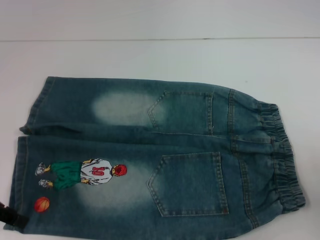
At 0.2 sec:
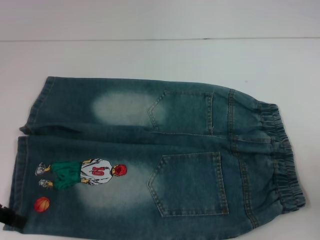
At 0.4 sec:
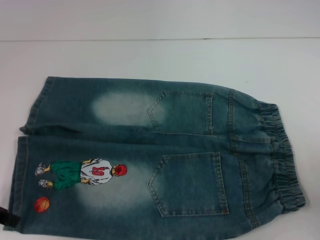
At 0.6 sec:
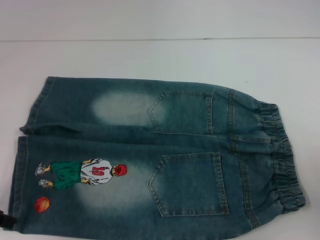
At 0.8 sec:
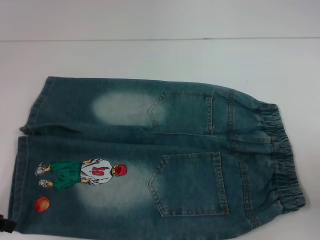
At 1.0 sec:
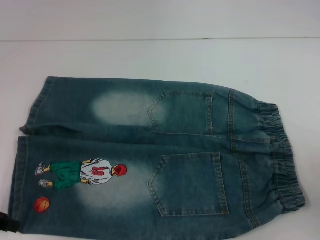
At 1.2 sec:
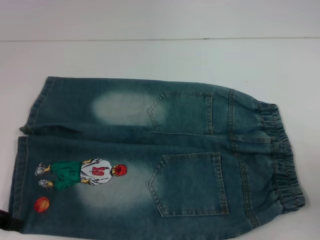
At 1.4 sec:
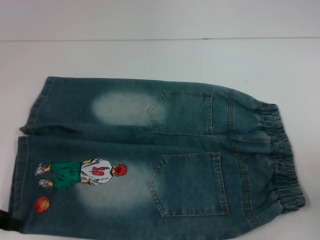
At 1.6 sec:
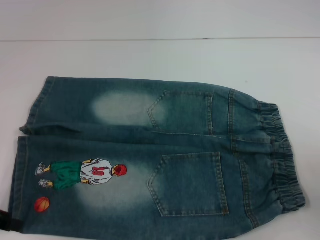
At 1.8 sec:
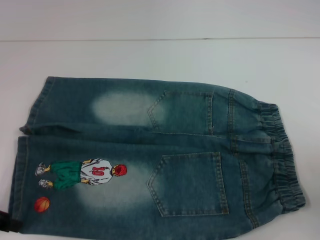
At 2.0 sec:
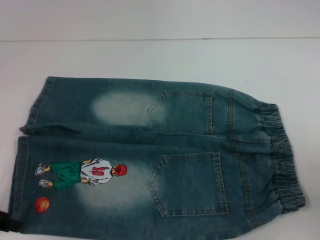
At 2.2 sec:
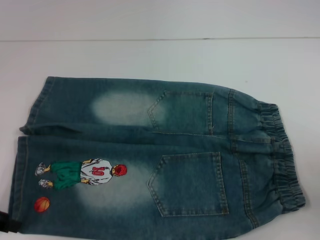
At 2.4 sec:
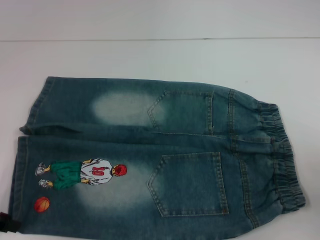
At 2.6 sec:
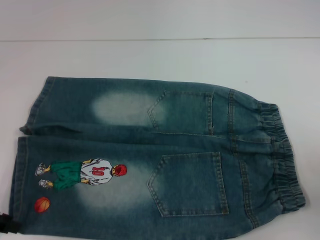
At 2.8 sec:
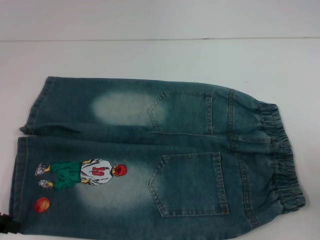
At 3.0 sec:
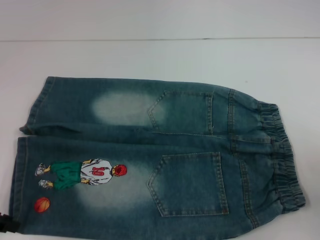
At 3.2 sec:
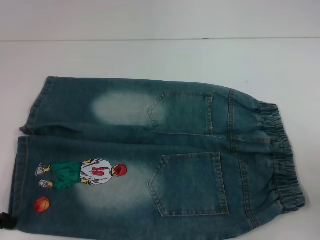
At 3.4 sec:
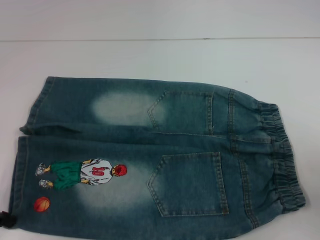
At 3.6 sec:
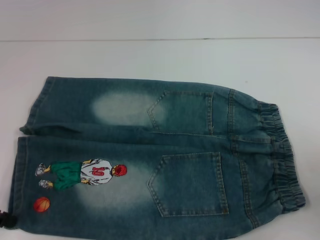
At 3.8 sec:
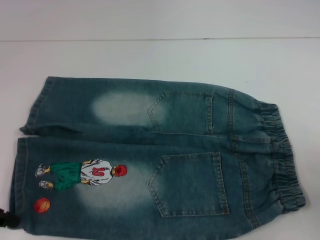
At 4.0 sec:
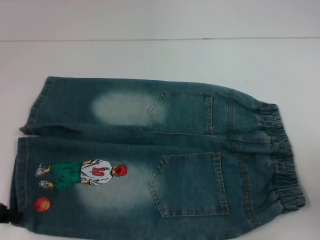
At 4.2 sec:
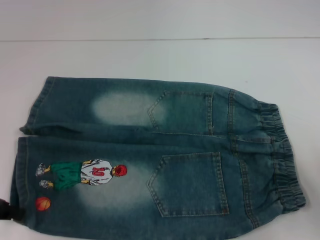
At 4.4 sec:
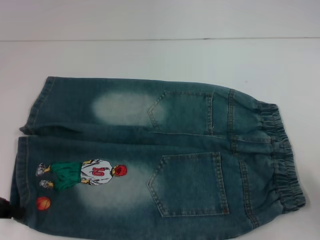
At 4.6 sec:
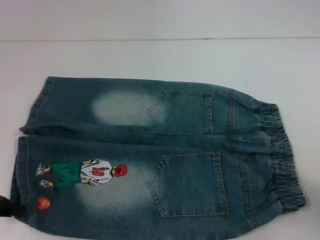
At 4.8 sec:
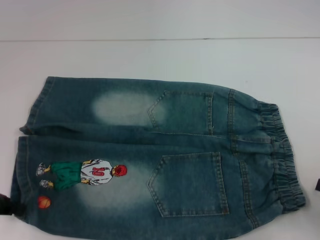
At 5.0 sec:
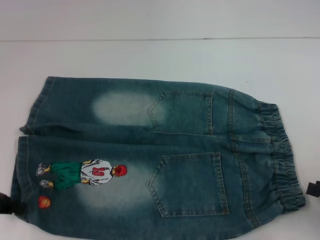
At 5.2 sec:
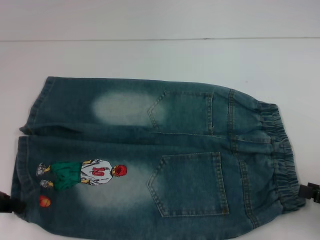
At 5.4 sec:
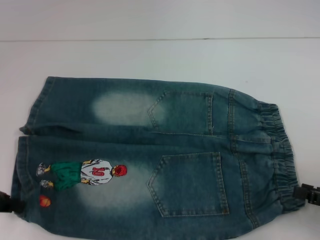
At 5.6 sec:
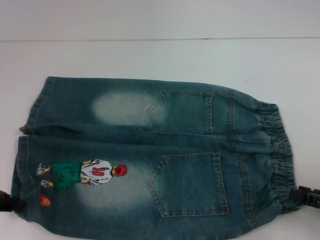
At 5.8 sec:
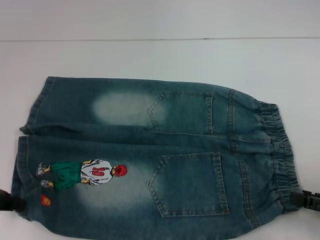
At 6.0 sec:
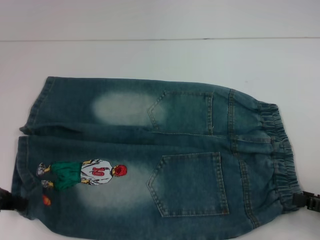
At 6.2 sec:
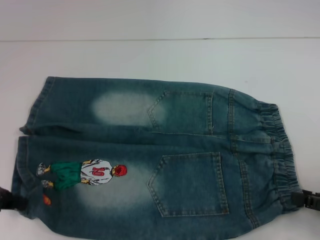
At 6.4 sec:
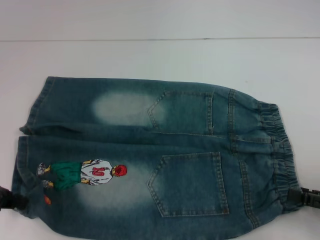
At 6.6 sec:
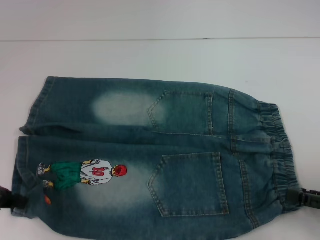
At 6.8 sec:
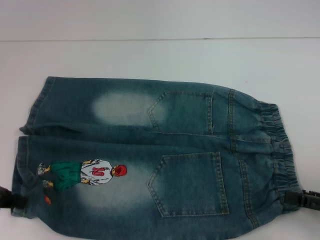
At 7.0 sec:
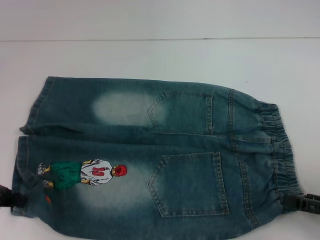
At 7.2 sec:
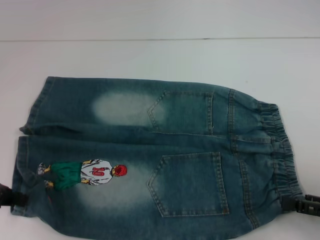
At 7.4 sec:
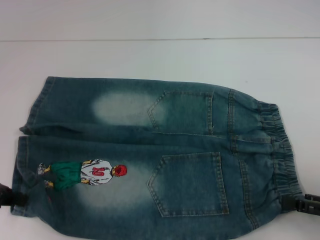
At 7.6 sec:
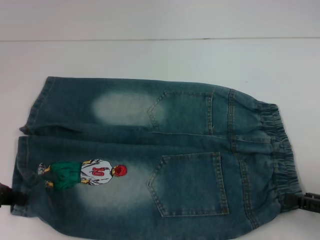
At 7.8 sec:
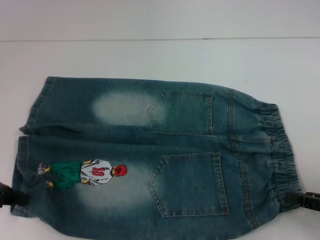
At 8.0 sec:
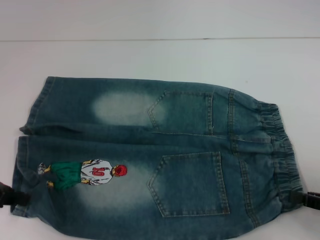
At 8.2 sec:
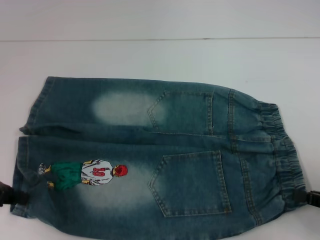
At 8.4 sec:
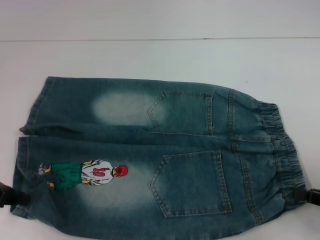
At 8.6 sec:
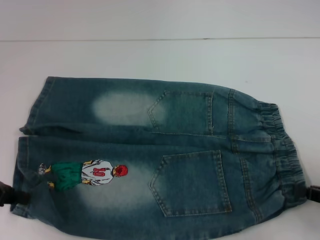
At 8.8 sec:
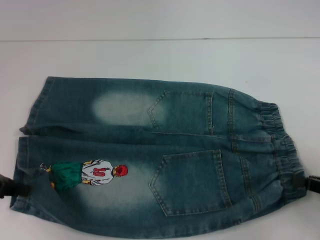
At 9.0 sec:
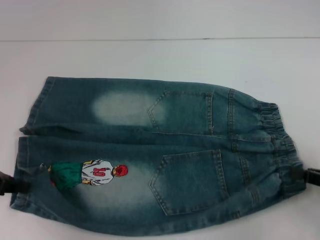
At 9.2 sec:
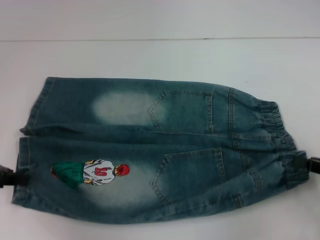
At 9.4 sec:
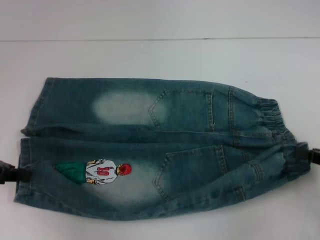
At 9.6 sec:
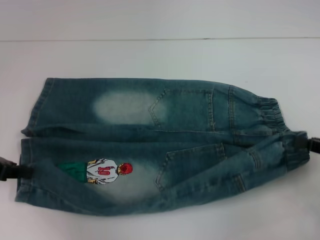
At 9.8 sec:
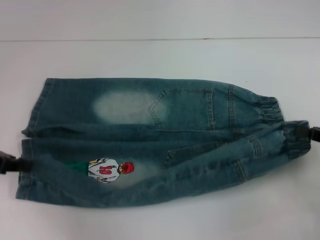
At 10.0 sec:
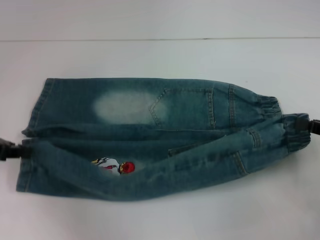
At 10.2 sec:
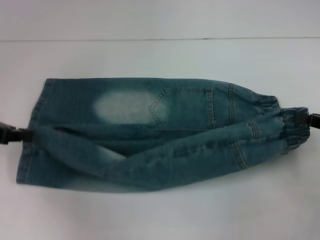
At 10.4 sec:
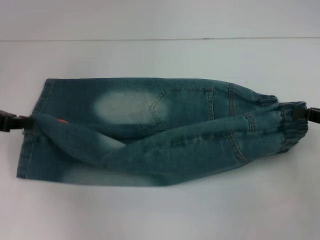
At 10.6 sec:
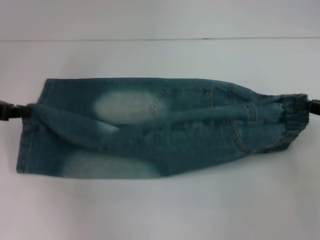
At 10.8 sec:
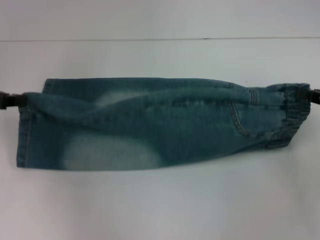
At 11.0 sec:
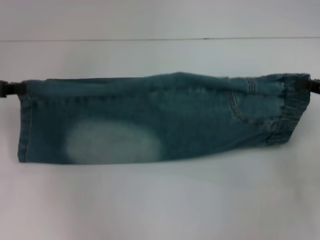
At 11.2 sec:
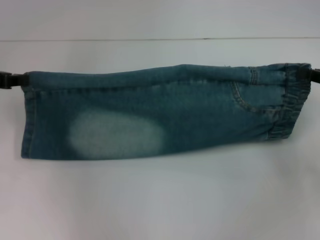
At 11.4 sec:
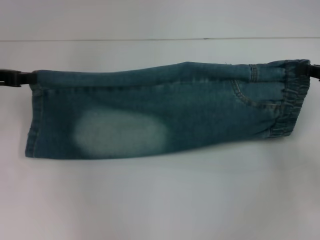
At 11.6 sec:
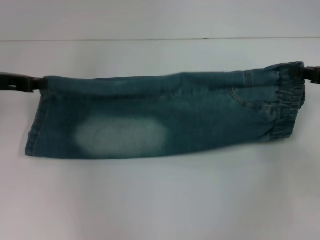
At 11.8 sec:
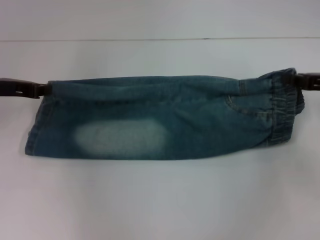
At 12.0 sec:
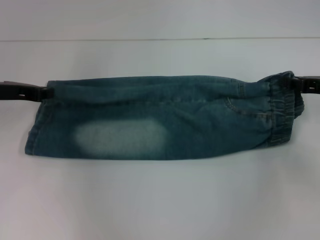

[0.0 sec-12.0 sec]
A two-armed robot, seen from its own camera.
1.6 sec to 3.0 sec: The two grippers keep their place.
3.0 sec to 4.4 sec: The grippers make only small movements.
4.4 sec to 6.0 sec: There are only small adjustments of the grippers.
6.0 sec to 7.6 sec: The grippers move only a little.
7.6 sec to 9.0 sec: The right gripper closes its fingers.
9.0 sec to 10.4 sec: The right gripper travels forward by some 5 cm; the left gripper ends up some 5 cm from where it was.
10.4 sec to 12.0 sec: The left gripper ends up about 5 cm from where it was; the right gripper heads forward, covering approximately 5 cm.

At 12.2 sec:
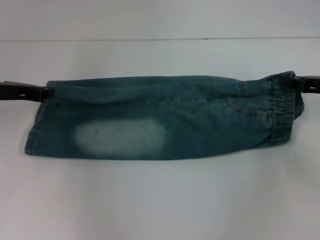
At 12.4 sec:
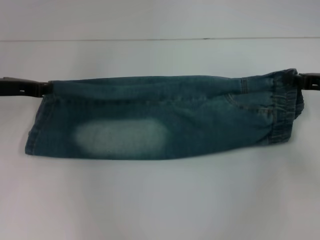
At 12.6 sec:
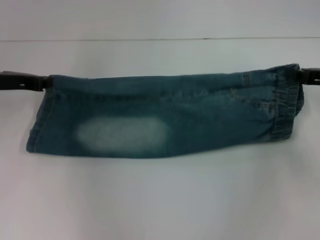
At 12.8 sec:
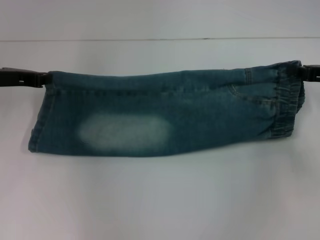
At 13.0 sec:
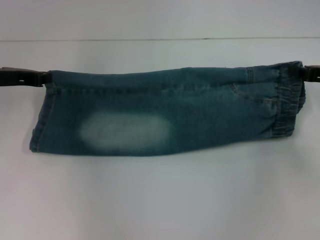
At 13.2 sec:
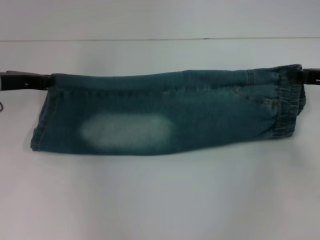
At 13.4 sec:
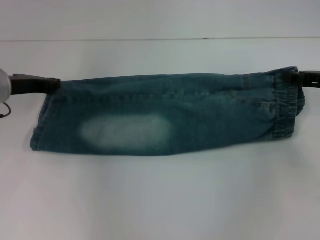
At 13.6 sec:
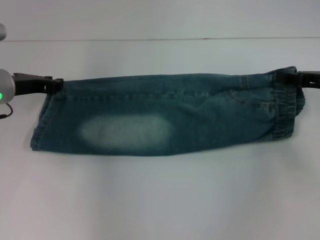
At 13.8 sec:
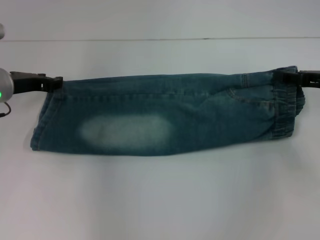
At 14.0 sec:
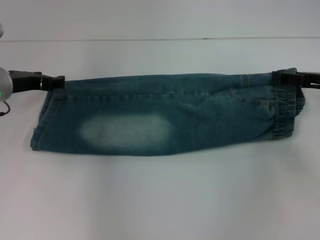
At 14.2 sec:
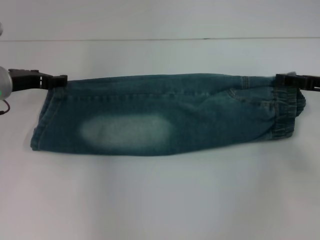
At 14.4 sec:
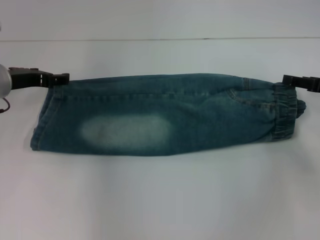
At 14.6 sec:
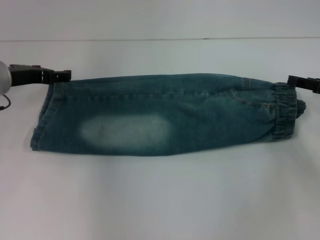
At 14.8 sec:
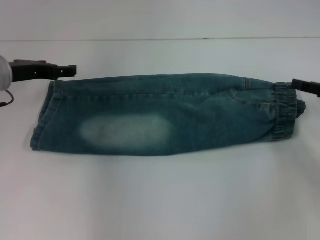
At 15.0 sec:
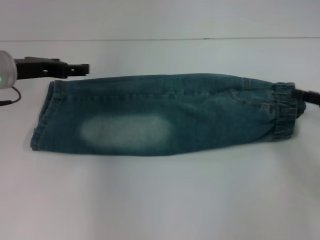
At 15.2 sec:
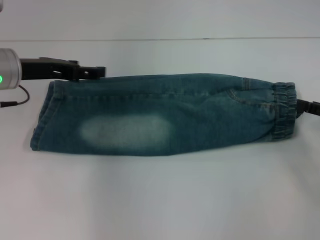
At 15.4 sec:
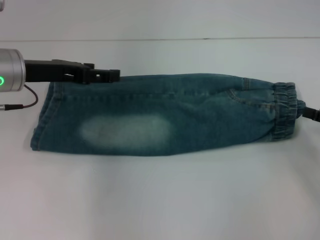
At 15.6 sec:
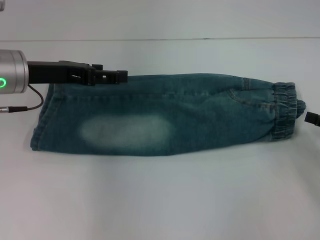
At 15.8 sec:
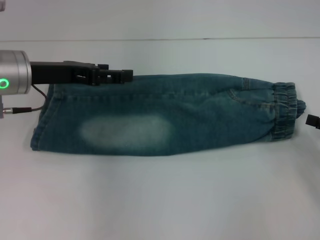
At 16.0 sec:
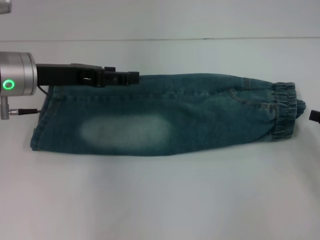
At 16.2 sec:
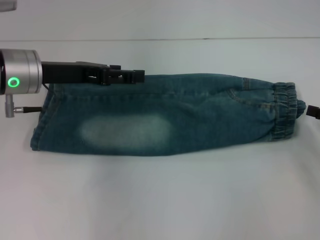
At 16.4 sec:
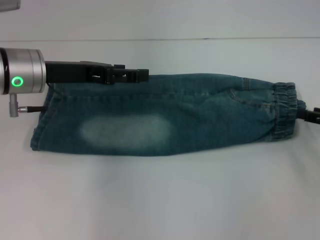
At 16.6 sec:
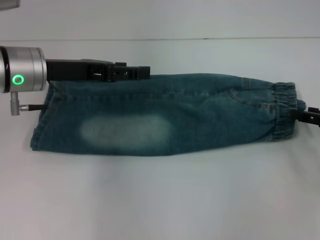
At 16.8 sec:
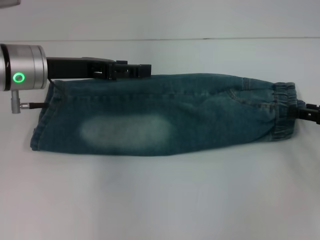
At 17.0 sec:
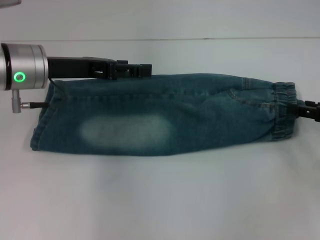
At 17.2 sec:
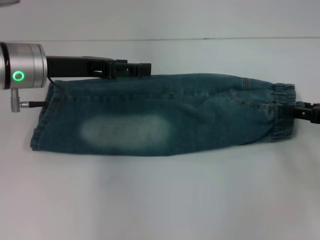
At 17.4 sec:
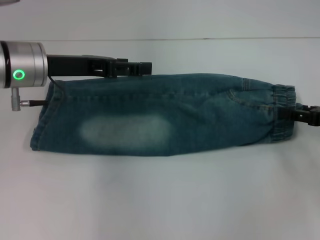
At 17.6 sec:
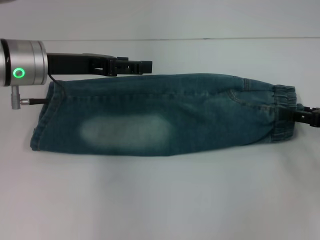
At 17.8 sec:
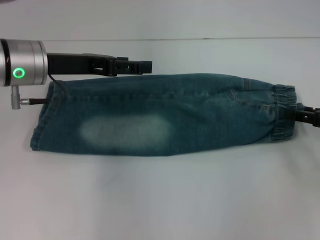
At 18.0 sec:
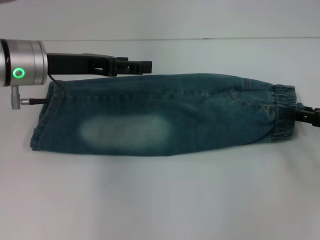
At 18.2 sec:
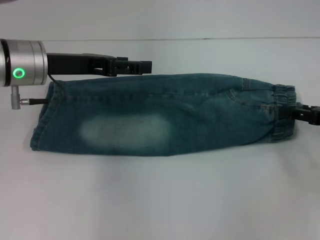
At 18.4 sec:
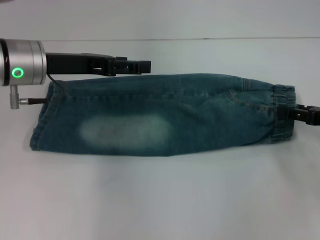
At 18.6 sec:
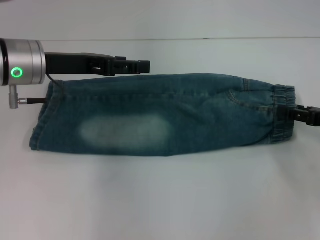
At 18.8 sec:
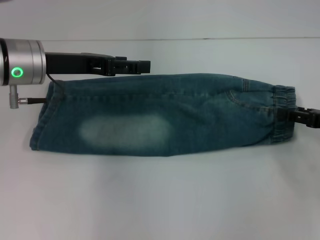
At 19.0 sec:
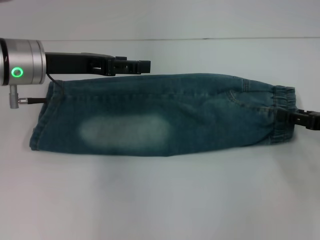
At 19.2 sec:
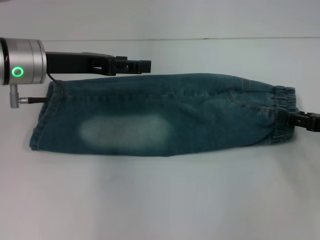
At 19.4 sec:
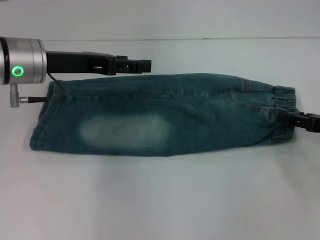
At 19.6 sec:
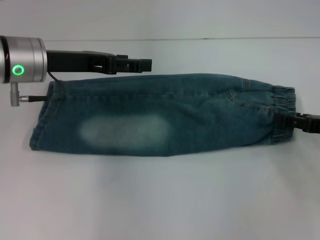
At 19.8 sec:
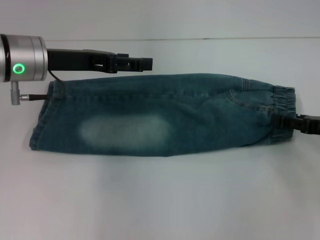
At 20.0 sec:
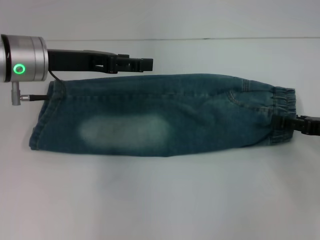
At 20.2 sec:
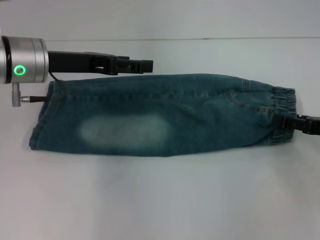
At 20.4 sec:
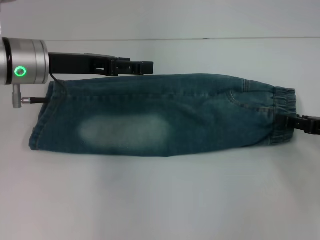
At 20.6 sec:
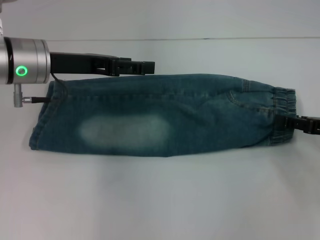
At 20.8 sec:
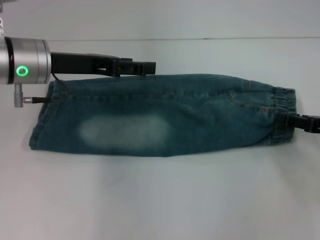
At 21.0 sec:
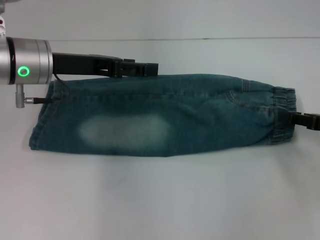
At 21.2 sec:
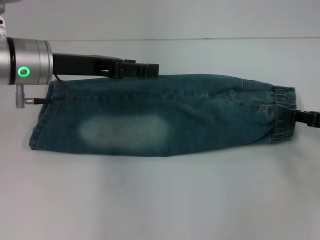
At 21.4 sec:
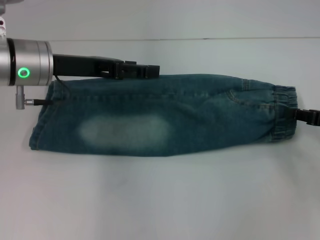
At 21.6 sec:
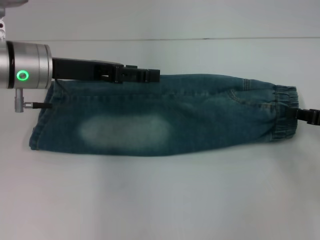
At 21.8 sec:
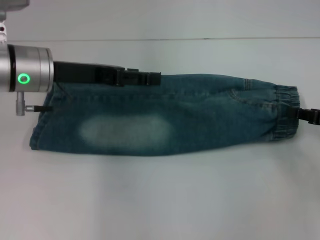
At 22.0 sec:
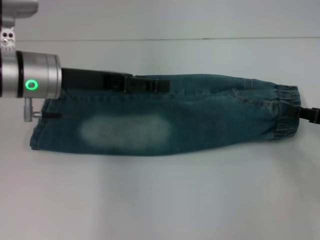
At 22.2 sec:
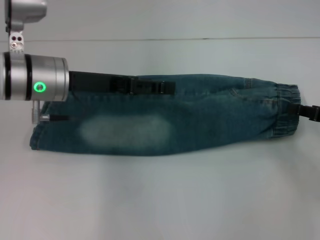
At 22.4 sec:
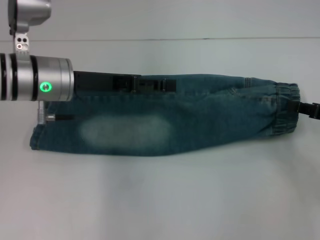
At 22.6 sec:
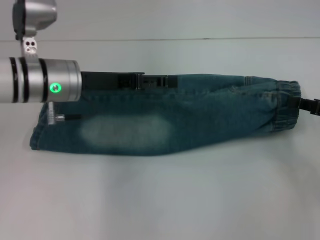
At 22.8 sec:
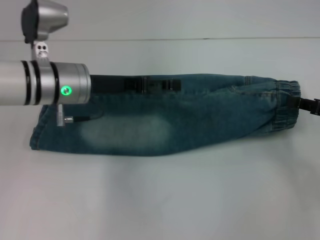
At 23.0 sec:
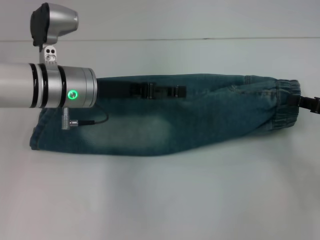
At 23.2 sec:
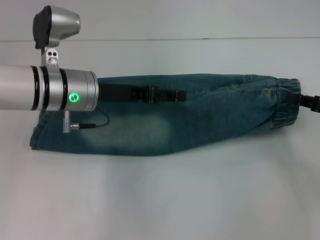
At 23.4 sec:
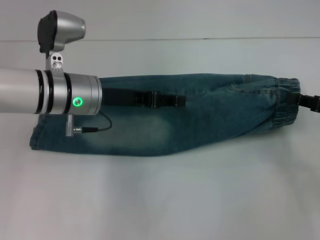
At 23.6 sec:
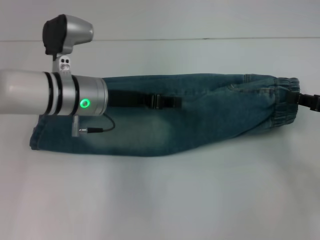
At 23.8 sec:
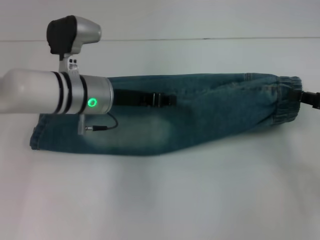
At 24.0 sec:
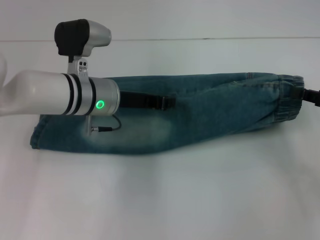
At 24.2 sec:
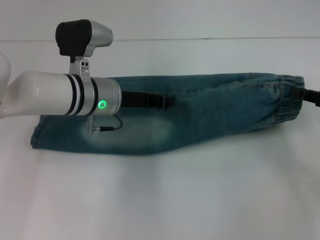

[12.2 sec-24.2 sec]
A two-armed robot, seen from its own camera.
Step, 12.2 sec to 14.4 sec: Fold upward with your right hand.
Step, 14.6 sec to 20.4 sec: Grab the waistband with your right hand.
12.2 sec to 13.8 sec: The right gripper opens its fingers.
13.8 sec to 15.2 sec: The left gripper moves upward, some 5 cm, and opens up; the right gripper heads backward, covering roughly 10 cm, and opens its fingers.
15.2 sec to 19.8 sec: The grippers stay close to where they were, moving slightly.
19.8 sec to 21.2 sec: Neither gripper changes place.
21.2 sec to 22.6 sec: The right gripper closes.
22.6 sec to 24.2 sec: The left gripper moves to the right, approximately 5 cm, and closes its fingers.
